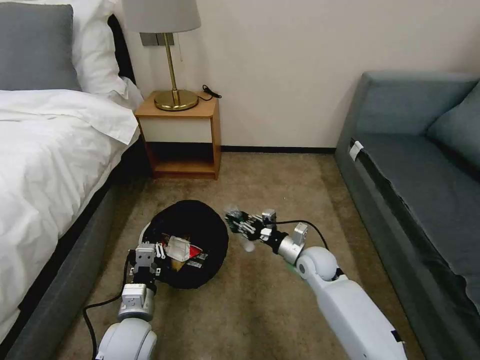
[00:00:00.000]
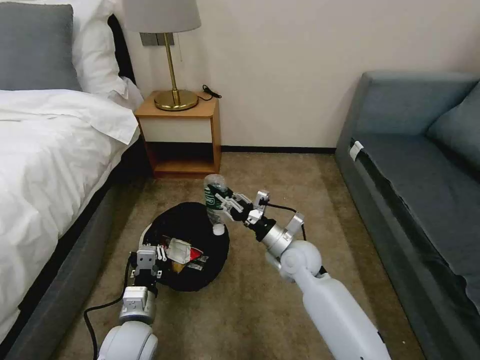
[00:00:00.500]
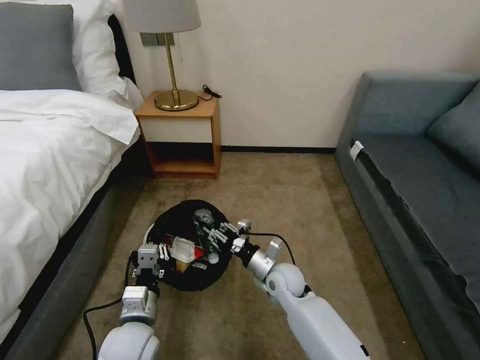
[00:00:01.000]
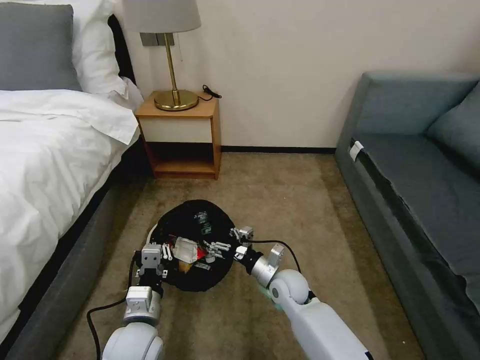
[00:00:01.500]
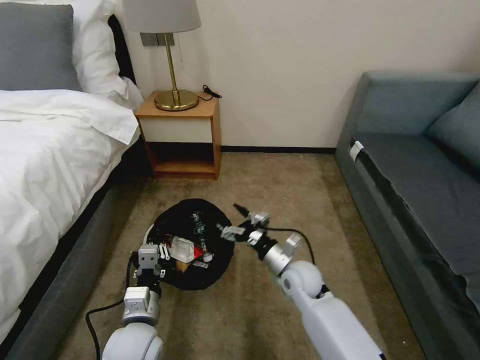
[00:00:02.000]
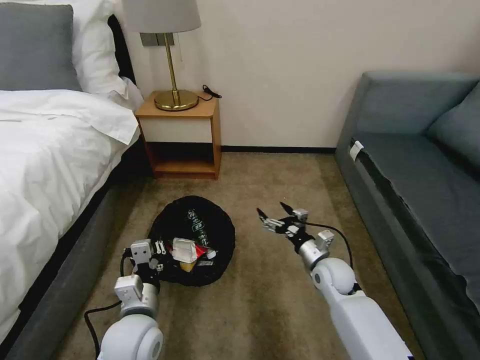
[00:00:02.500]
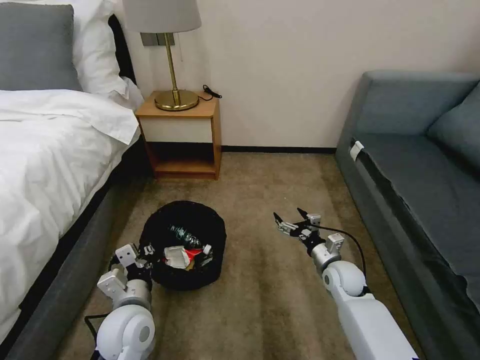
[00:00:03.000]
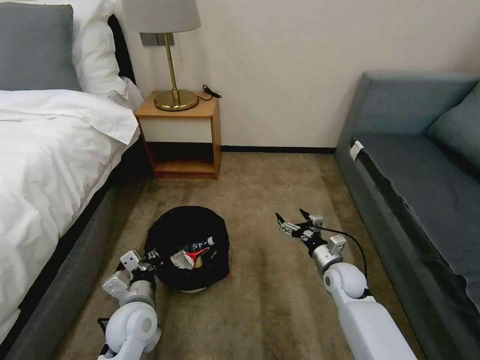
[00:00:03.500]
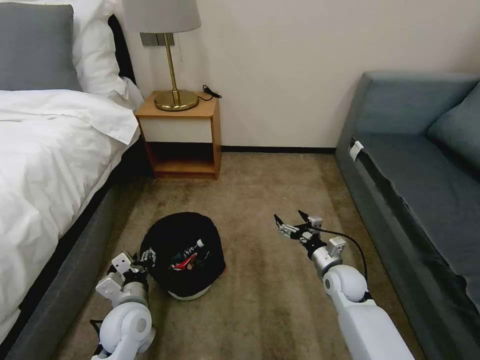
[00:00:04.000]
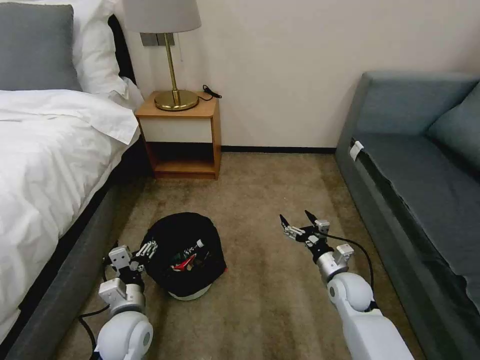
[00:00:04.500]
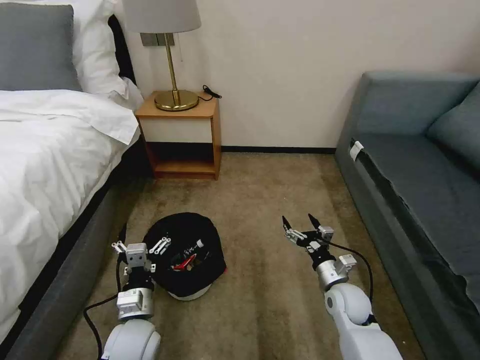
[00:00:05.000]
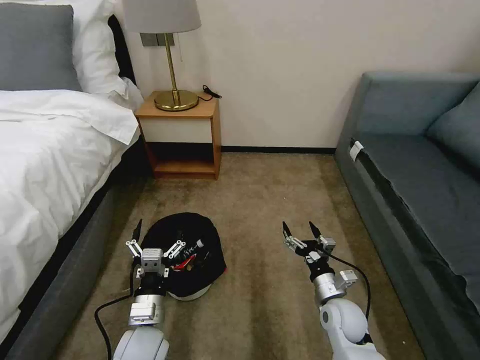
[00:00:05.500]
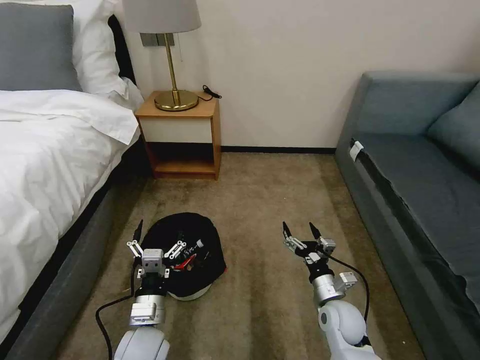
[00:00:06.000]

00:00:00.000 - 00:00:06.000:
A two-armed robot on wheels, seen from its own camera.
Task of the whole recording: Pick up the trash bin, then pick up the garbage on the floor and place it into the trash bin.
00:00:00.000 - 00:00:02.000: The right gripper goes up and down, approximately 10 cm each way, reversing 2 times, and opens its fingers.
00:00:02.000 - 00:00:04.000: The right gripper goes about 10 cm to the right, while the left gripper changes place by some 5 cm, and opens its fingers.
00:00:04.000 - 00:00:06.000: The left gripper ends up roughly 5 cm from where it was, and opens. The right gripper heads backward, covering some 10 cm.
